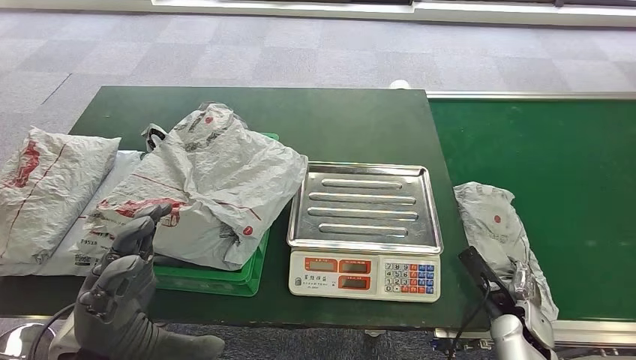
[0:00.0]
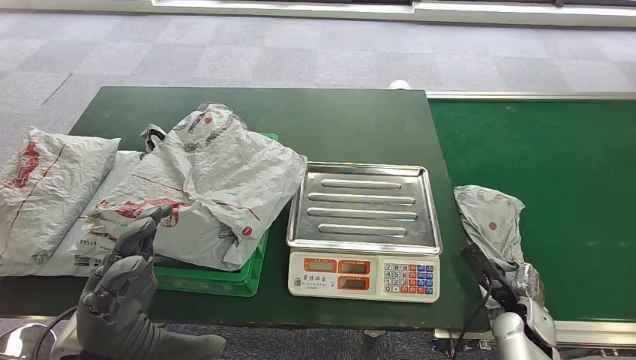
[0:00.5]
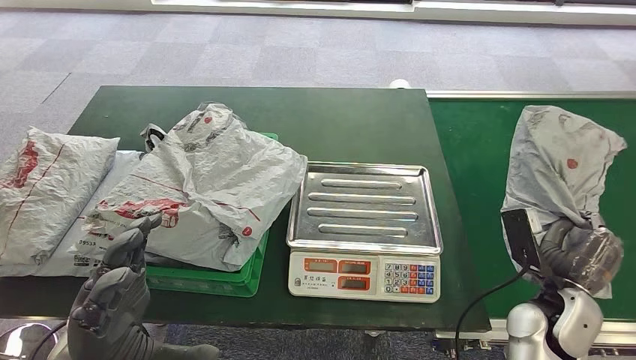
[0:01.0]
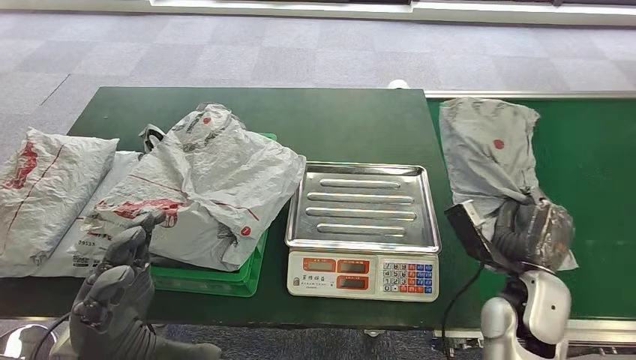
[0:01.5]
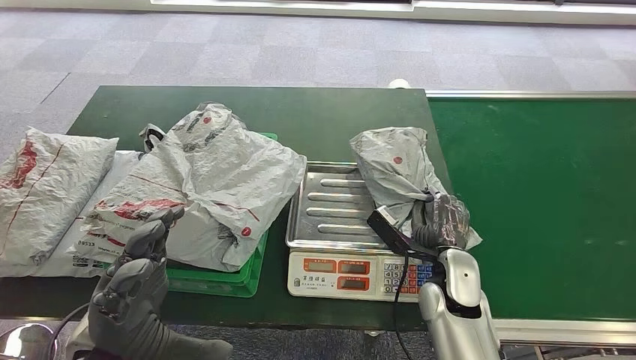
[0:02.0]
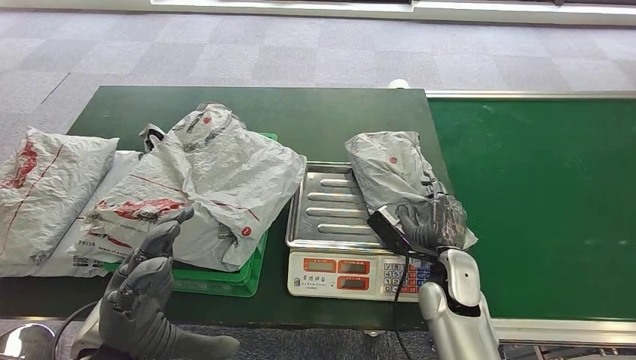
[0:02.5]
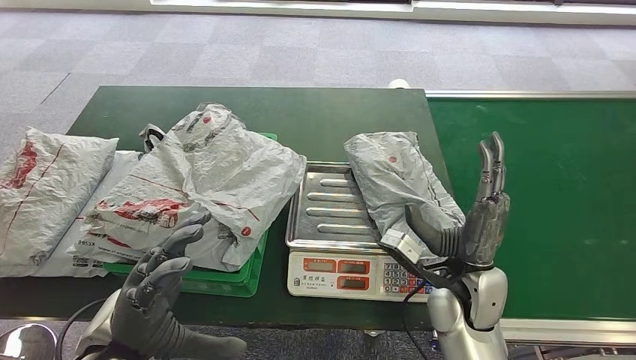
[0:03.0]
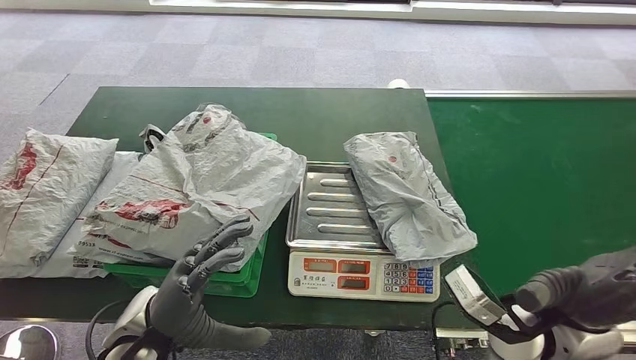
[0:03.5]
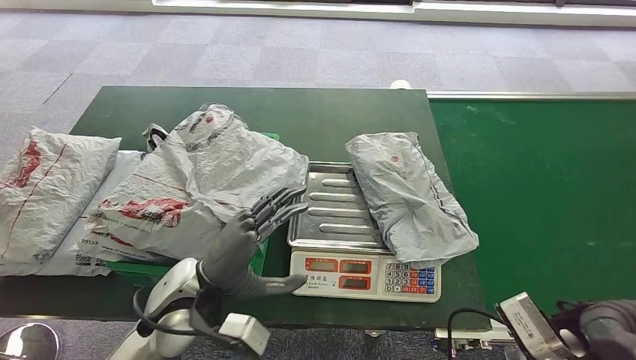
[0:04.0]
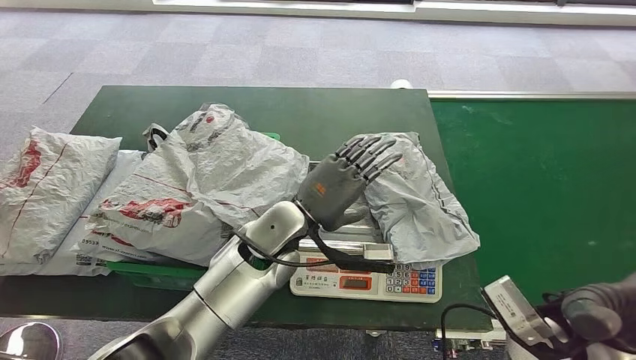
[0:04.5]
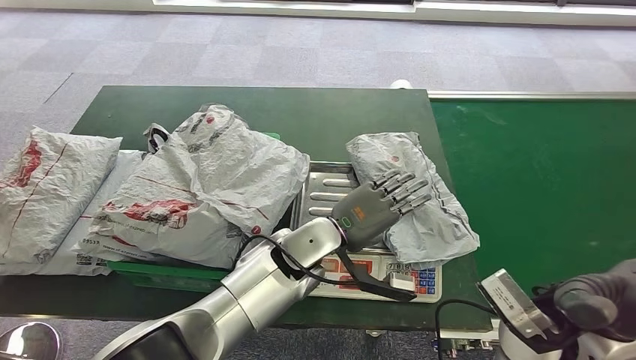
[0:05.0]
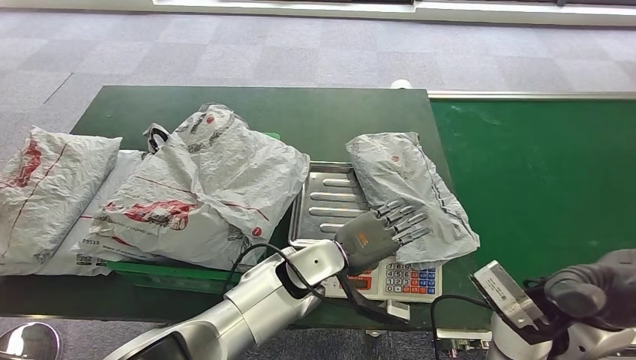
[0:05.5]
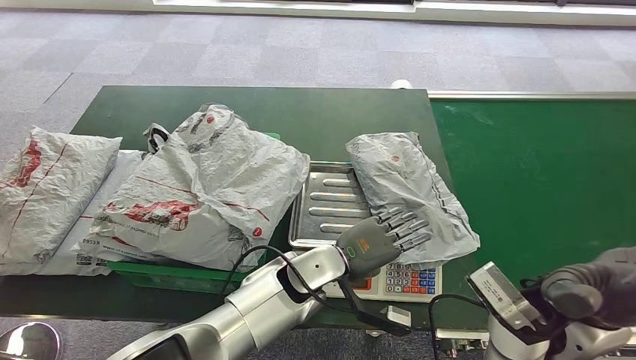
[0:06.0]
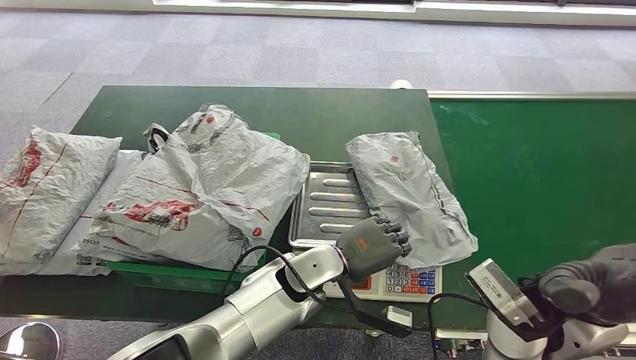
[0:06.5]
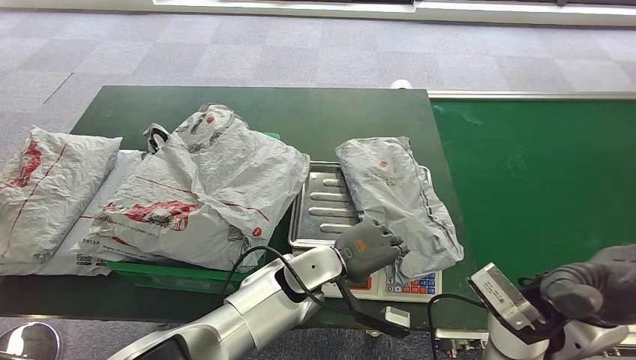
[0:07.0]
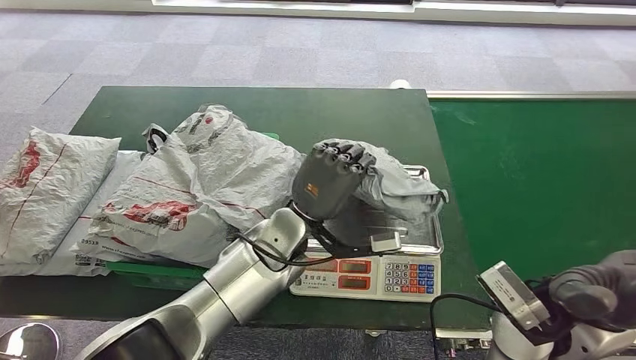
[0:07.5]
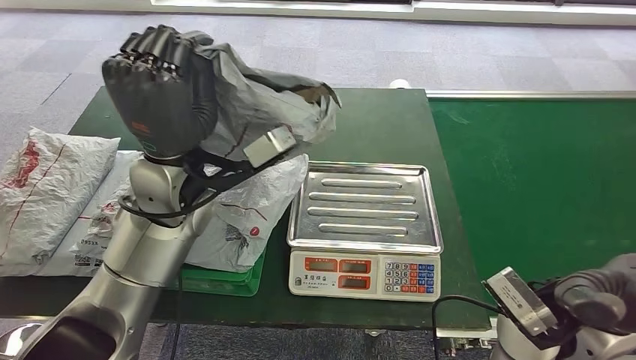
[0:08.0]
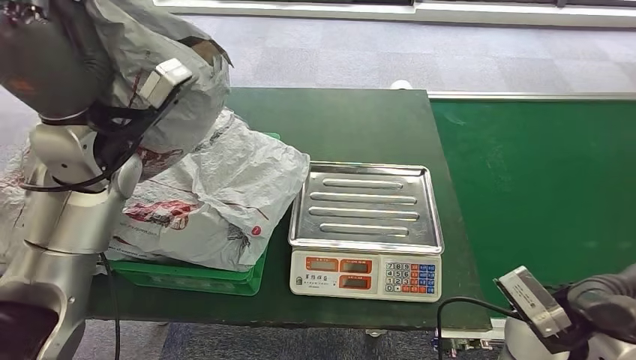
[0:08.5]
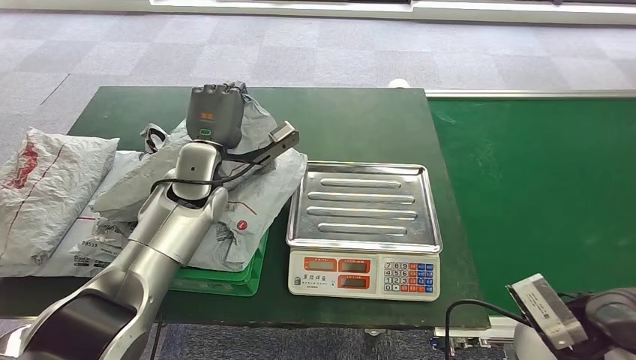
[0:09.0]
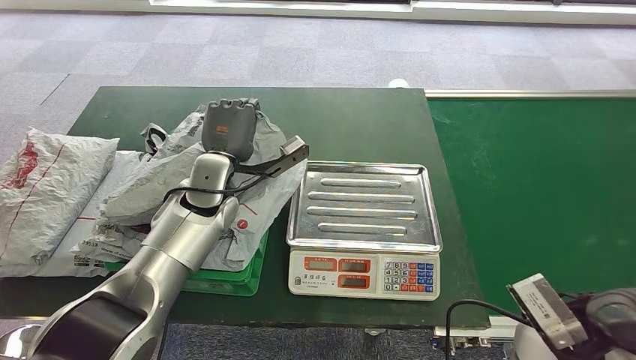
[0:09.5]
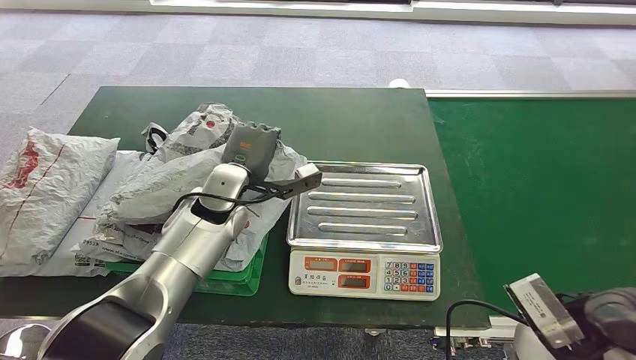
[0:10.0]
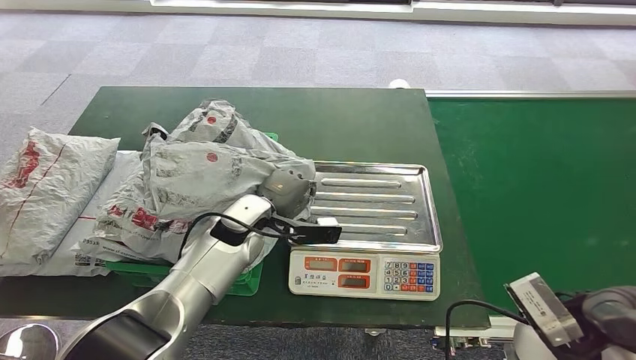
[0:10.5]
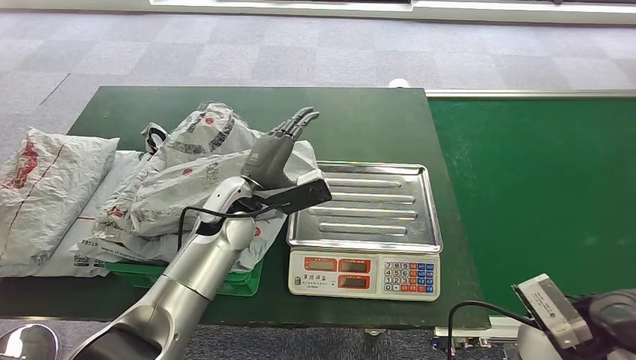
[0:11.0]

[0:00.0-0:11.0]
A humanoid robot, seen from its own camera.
Step, 0:00.0 to 0:01.0: Pick up the parcel from the conveyor belt.
Step, 0:02.0 to 0:03.5: Place the parcel onto the inbound machine.
Step, 0:05.5 to 0:07.5: Pick up the parcel from the inbound machine.
Step, 0:08.0 to 0:11.0: Place the parcel into the delivery box.
0:00.0 to 0:02.0: The right hand travels to the left and upward by about 20 cm.
0:02.0 to 0:03.5: The right hand heads upward and backward, covering roughly 15 cm.
0:05.5 to 0:07.5: The left hand travels upward by approximately 5 cm.
0:09.0 to 0:11.0: The left hand moves to the right and downward, about 10 cm.
